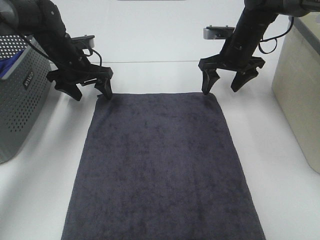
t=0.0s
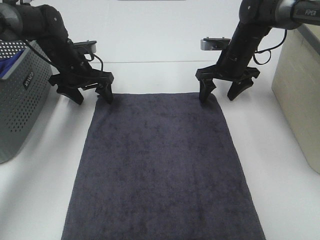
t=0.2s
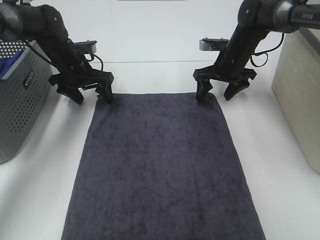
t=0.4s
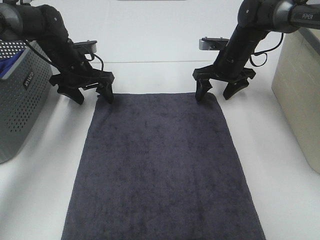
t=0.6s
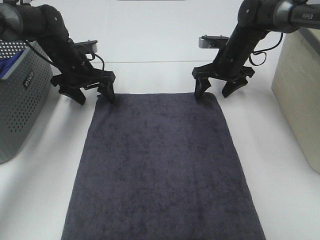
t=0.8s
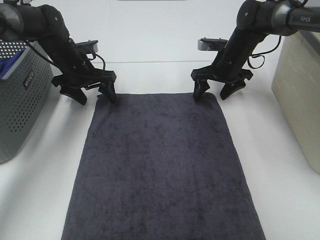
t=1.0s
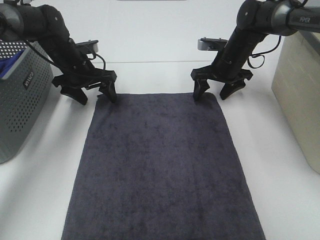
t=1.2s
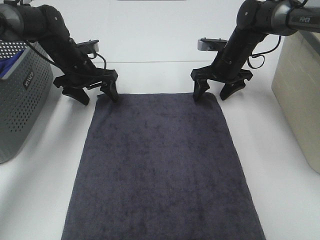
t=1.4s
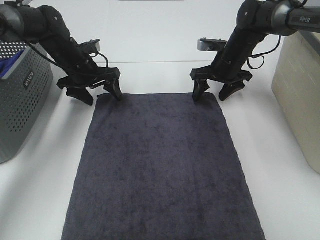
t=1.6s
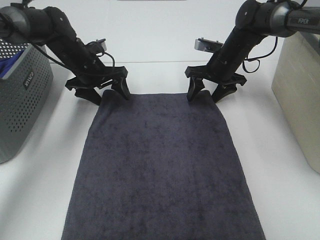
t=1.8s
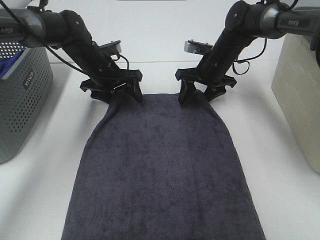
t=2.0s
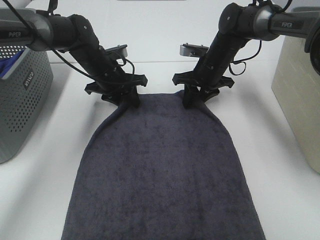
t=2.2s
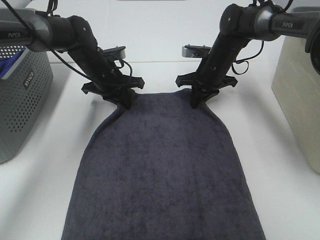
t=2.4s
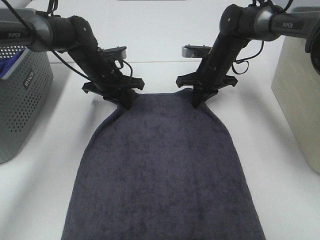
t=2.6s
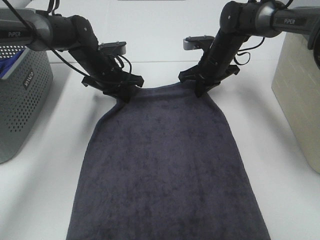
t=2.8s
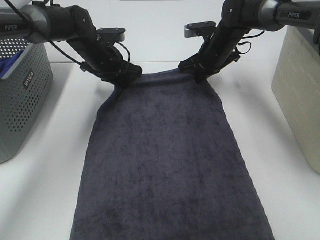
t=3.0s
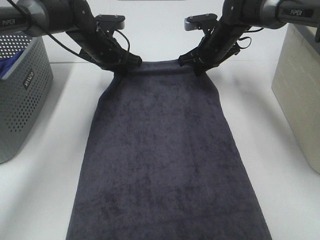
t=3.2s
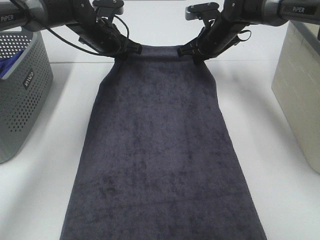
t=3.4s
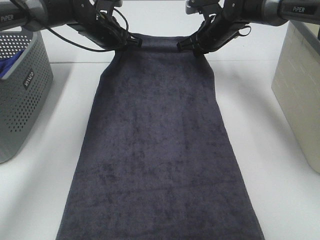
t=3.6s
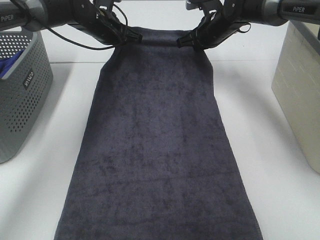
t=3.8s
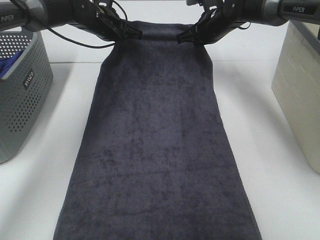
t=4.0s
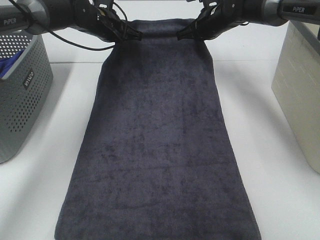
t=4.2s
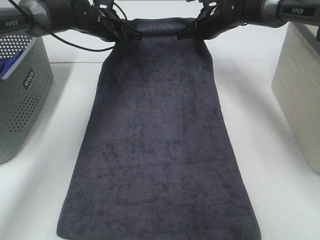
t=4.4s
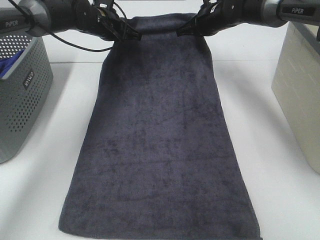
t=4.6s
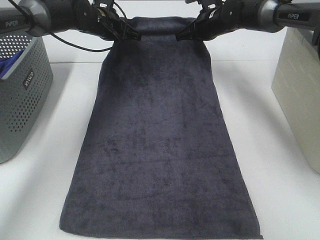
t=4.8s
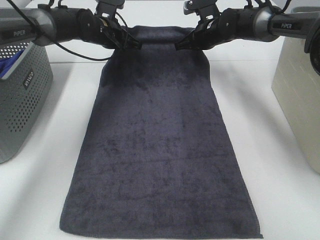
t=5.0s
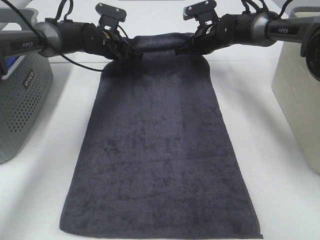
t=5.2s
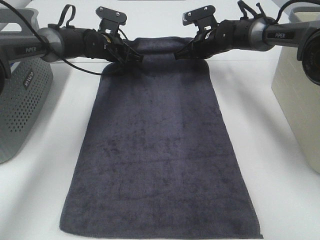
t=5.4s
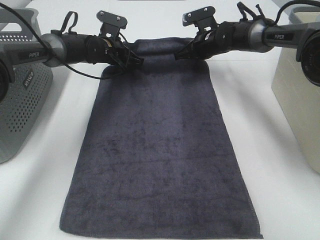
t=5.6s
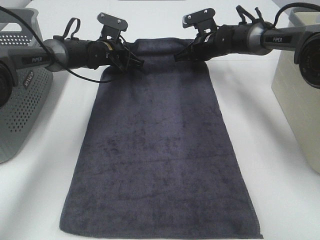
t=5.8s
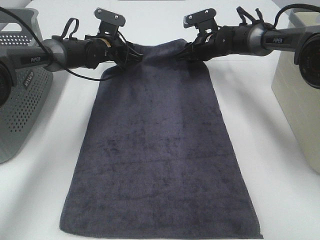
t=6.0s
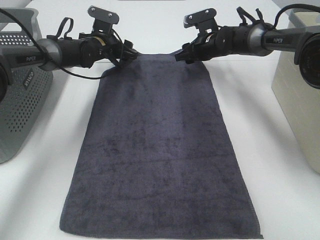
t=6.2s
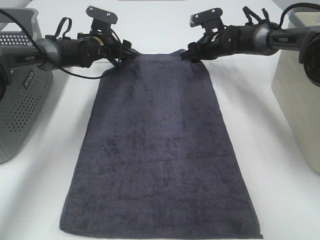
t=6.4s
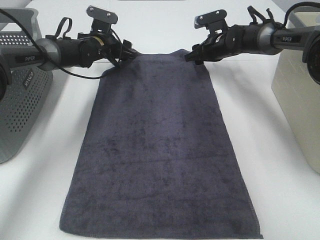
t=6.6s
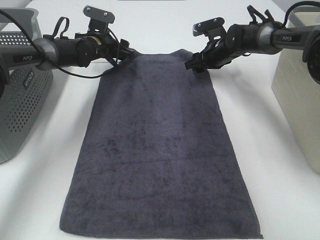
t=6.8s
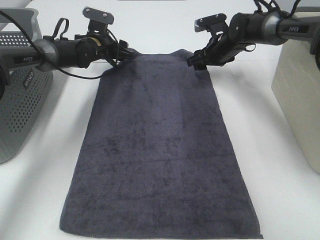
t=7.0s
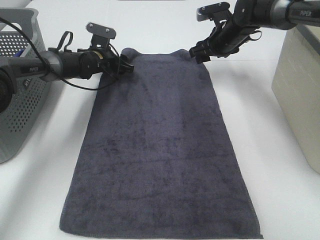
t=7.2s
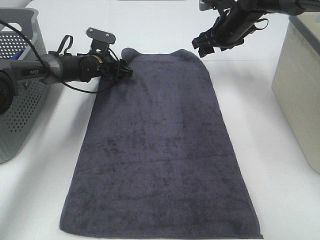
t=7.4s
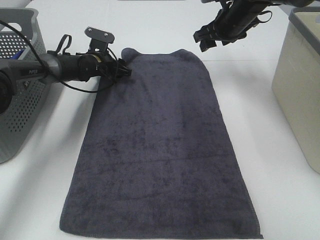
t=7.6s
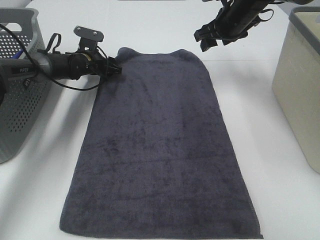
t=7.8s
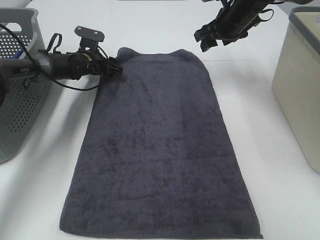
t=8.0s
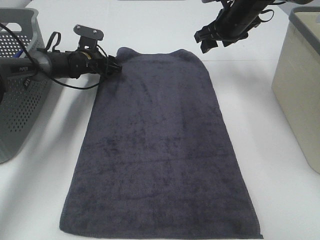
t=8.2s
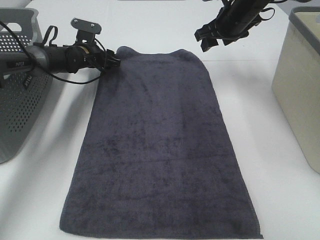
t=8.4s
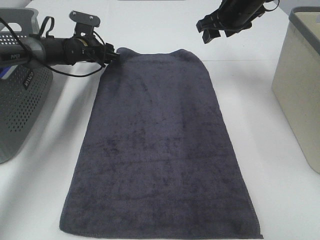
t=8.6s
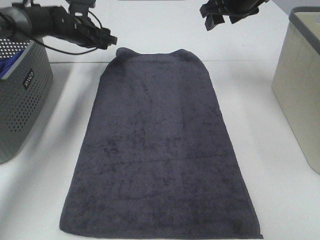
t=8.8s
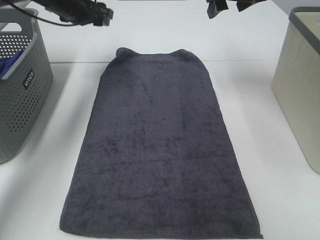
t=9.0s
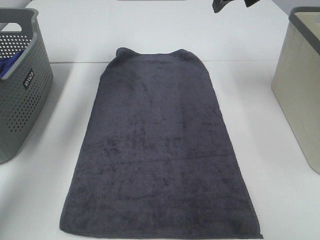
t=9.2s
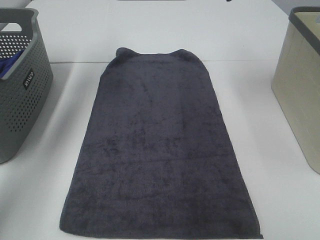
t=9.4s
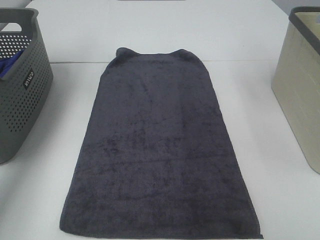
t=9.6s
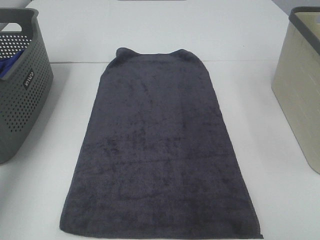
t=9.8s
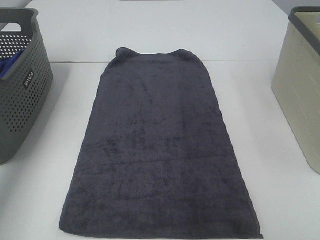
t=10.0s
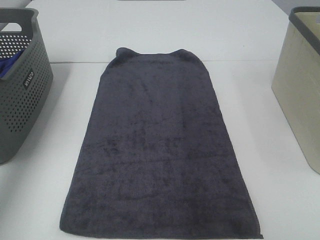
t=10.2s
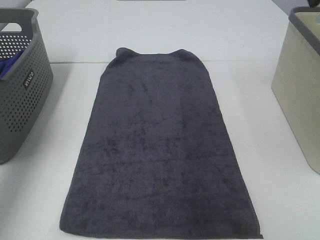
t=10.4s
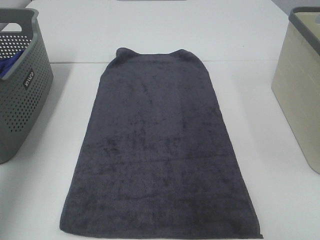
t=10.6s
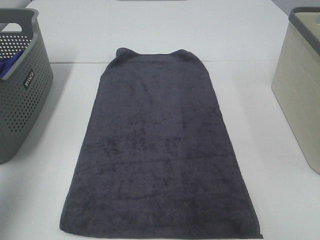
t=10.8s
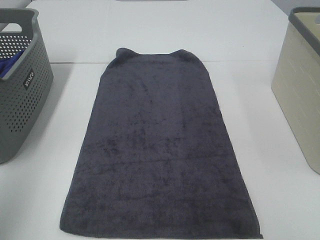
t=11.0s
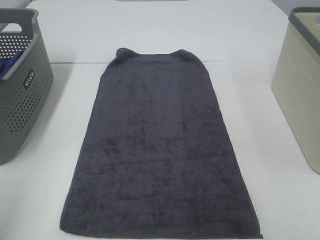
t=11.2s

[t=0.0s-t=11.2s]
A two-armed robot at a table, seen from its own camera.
Task of the whole recording: Remove the towel and place it.
Step, t=0.0s to t=2.0s: Left hand:adjust the gray towel.
t=0.0s to t=1.6s: The grippers move only a little.
t=1.6s to t=3.2s: The right gripper changes place by some 5 cm, and closes its fingers, while the left gripper shifts by about 5 cm, and closes.
t=4.8s to t=6.4s: Both grippers move downward, some 5 cm. The right gripper opens its fingers; the left gripper opens its fingers.
t=6.4s to t=8.0s: The left gripper ends up some 5 cm from where it was. Meanwhile the right gripper shifts roughly 10 cm upward.
t=8.0s to t=9.6s: The left gripper goes some 30 cm upward. Meanwhile the right gripper moves upward and backward, approximately 20 cm.
t=9.6s to t=11.2s: The two grippers go roughly 40 cm backward.

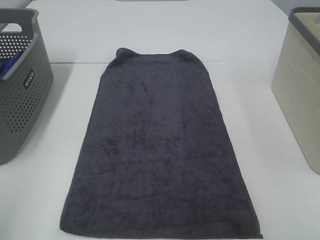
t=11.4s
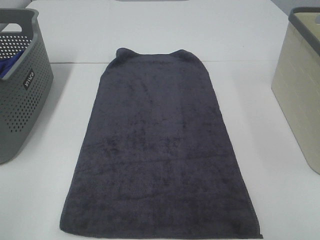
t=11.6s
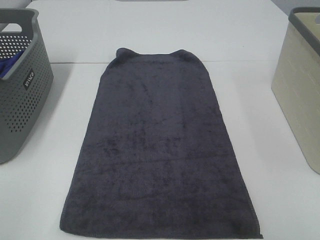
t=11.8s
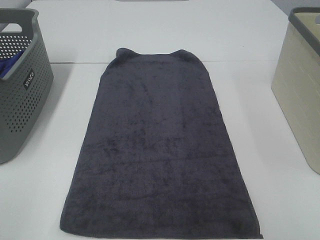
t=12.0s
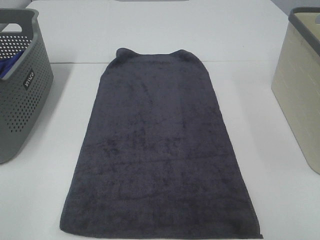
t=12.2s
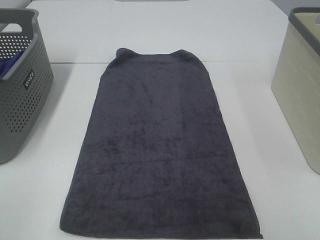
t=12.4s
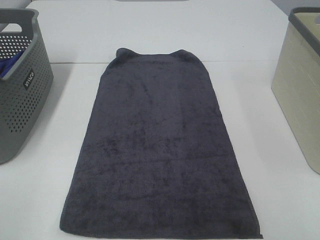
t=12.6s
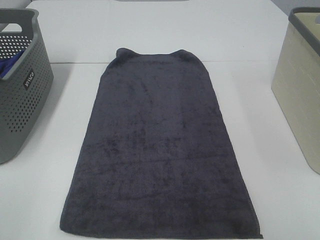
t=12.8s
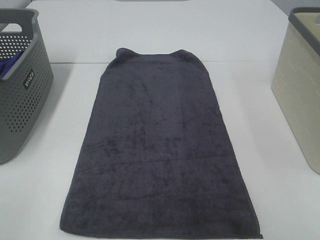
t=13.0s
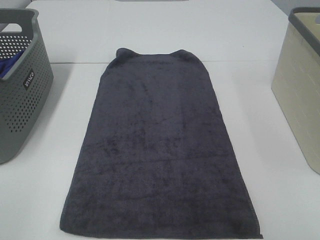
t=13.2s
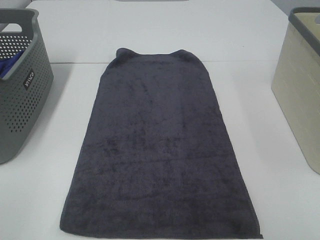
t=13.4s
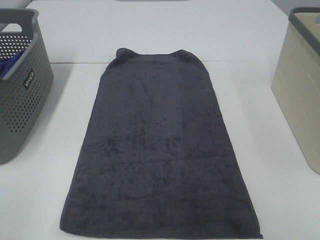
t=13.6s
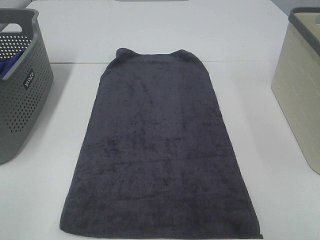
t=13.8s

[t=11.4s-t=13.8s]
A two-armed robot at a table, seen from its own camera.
Task of the whole recording: Remove the towel and place it.
t=12.6s to t=13.8s: Neither gripper changes place.

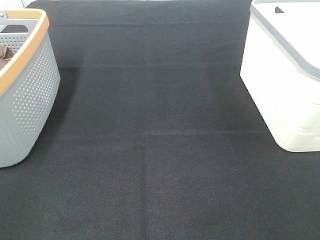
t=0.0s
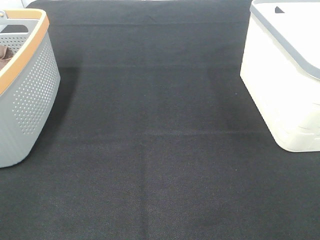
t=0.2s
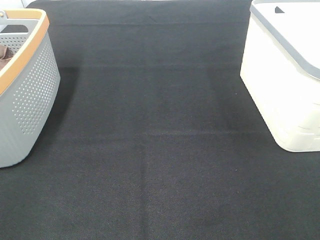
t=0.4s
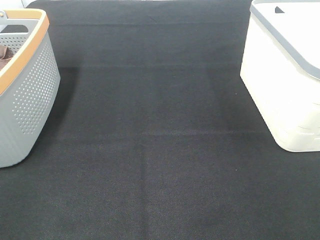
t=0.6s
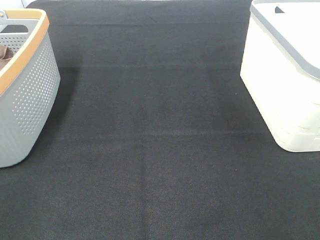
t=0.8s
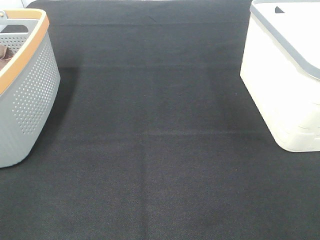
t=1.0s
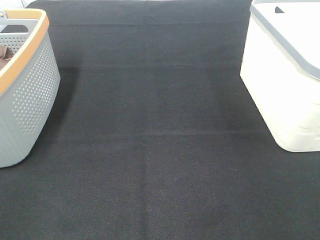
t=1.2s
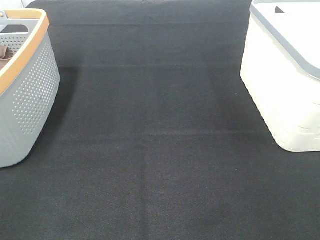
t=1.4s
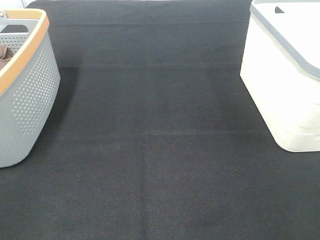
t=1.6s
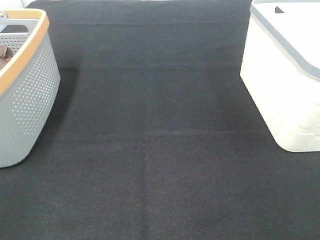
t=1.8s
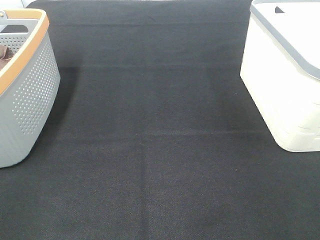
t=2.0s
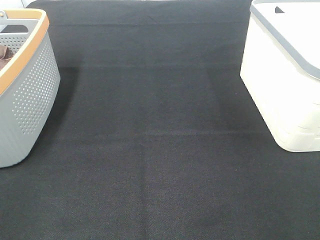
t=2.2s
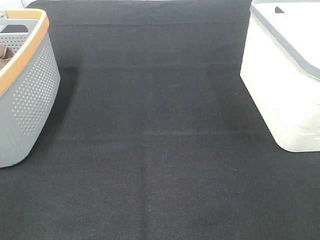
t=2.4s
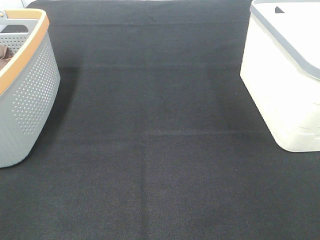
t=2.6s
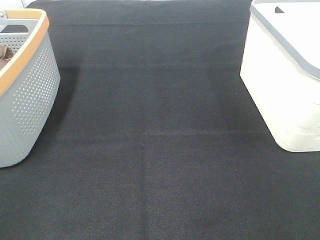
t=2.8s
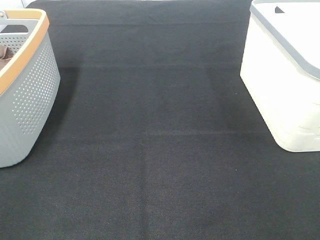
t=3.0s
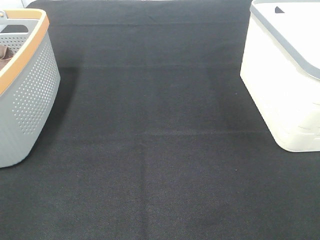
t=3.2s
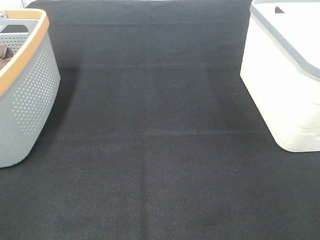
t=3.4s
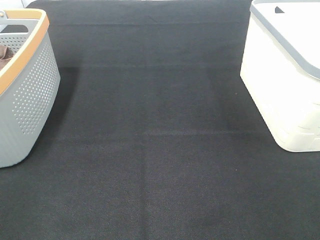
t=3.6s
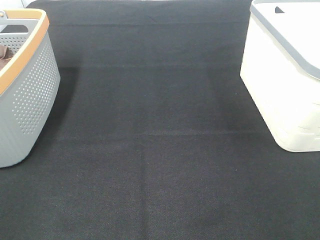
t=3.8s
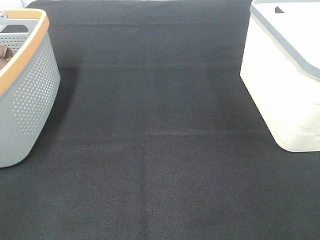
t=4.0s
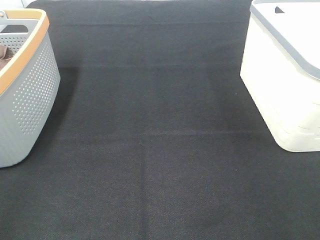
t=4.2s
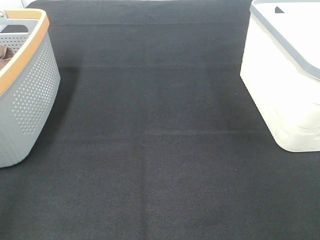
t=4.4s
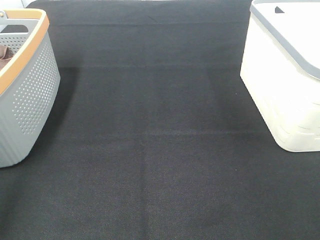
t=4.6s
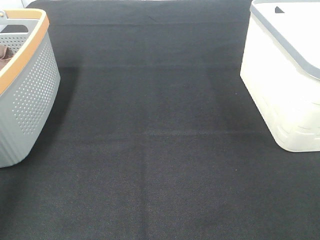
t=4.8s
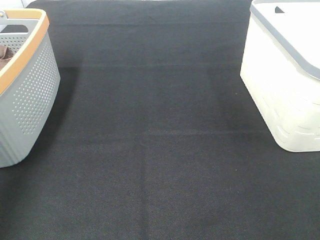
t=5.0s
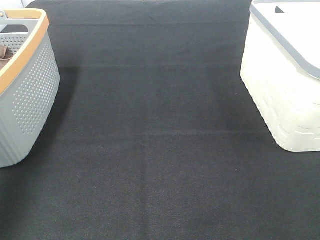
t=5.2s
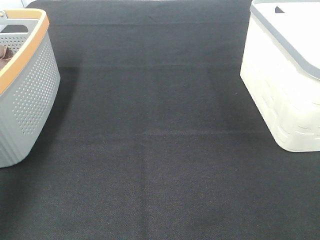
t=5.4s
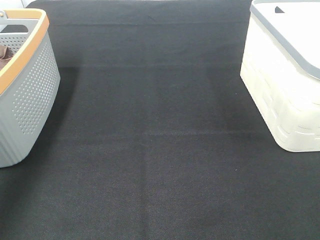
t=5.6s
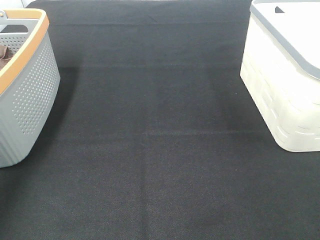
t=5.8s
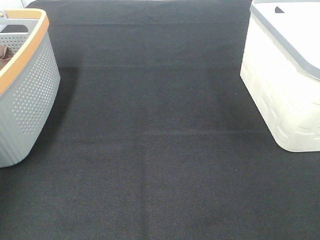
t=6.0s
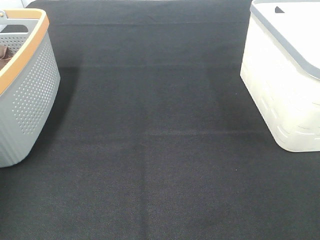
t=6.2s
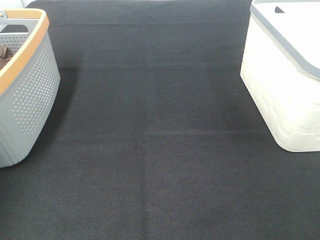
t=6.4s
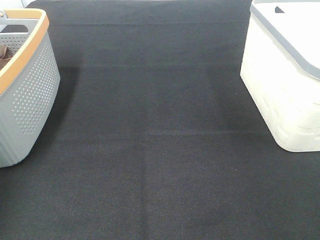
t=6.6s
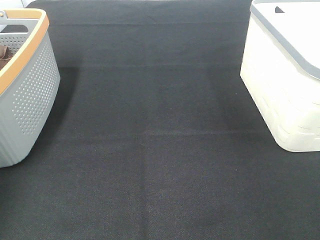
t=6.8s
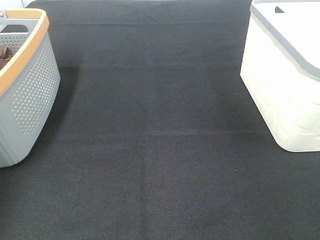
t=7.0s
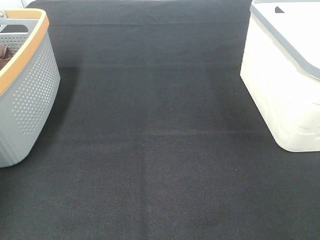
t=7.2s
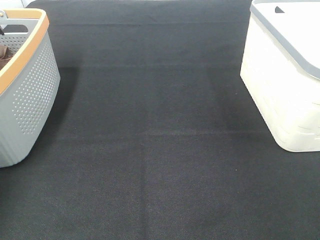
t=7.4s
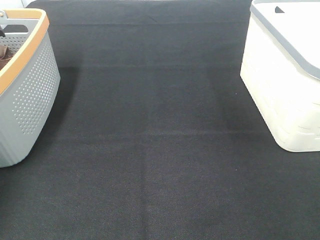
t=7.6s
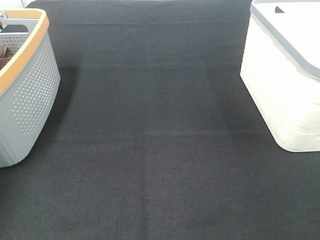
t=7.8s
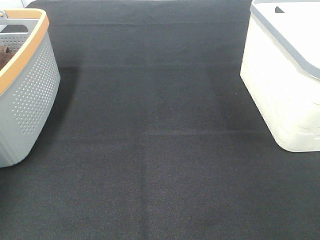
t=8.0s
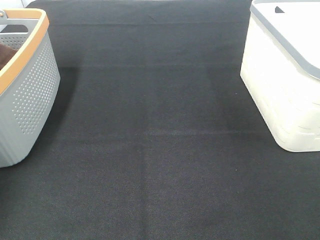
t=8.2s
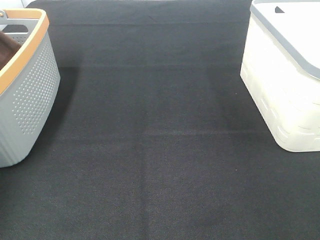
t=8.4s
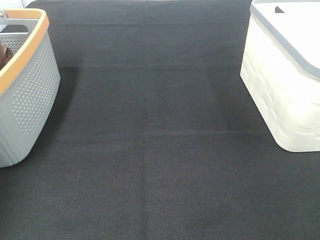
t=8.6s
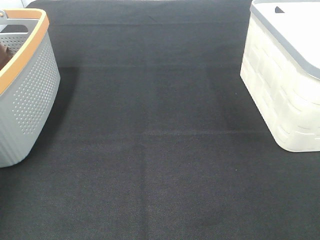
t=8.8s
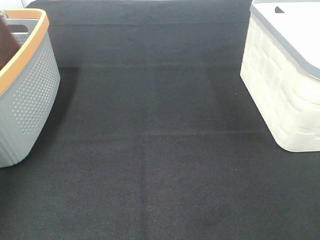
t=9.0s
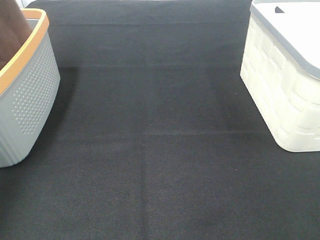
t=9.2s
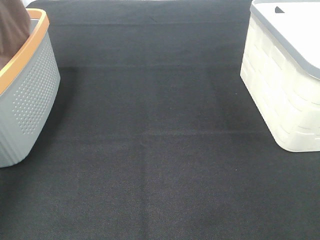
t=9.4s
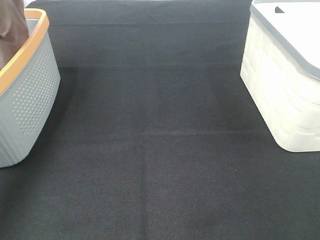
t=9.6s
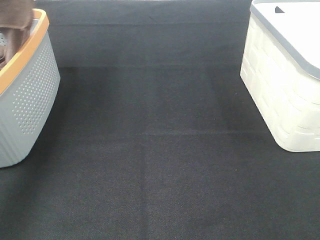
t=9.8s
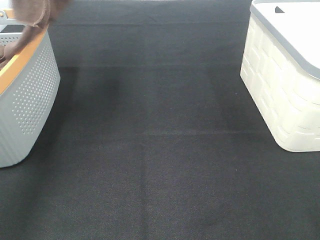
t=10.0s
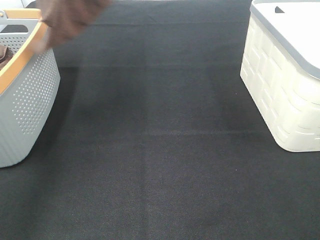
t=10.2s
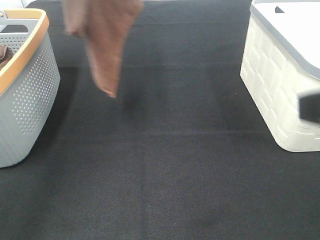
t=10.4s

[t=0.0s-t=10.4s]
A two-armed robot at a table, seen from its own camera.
Task of the whole recording: Remove the towel and place it.
t=0.0s to t=3.0s: The two grippers keep their place.
t=7.4s to t=9.0s: The left gripper goes some 25 cm upward, and closes its fingers.
t=9.0s to t=10.4s: The right gripper moves forward, to the left and upward, about 15 cm. Meanwhile the left gripper is displaced to the right by about 15 cm.
